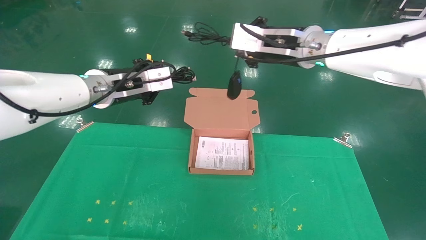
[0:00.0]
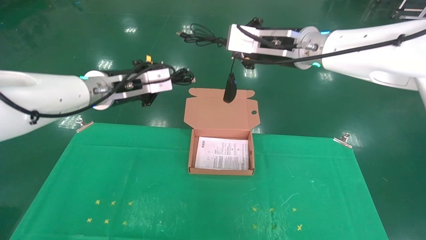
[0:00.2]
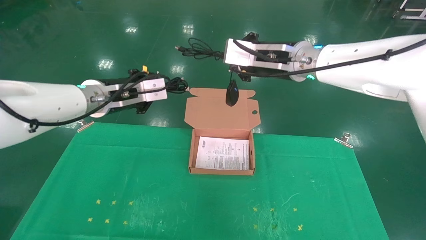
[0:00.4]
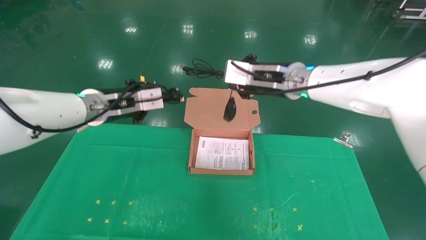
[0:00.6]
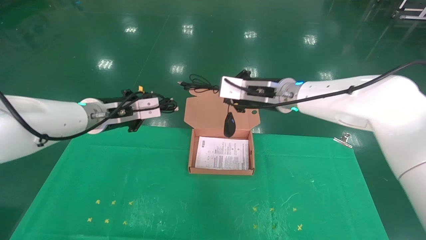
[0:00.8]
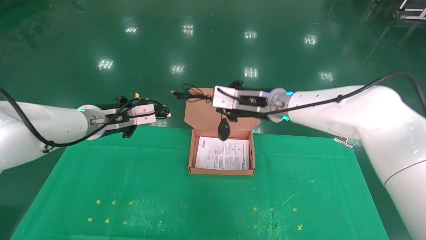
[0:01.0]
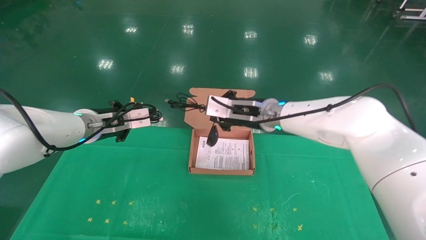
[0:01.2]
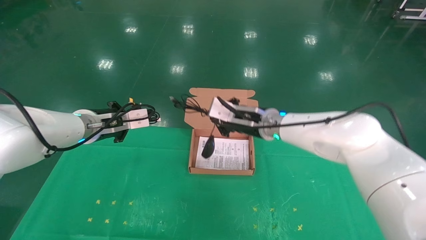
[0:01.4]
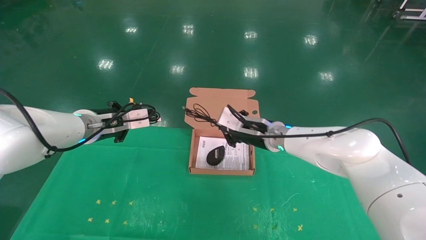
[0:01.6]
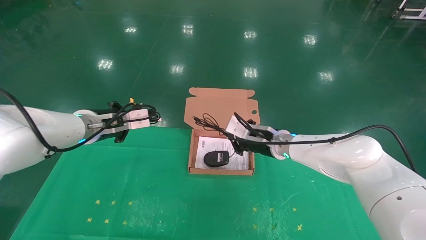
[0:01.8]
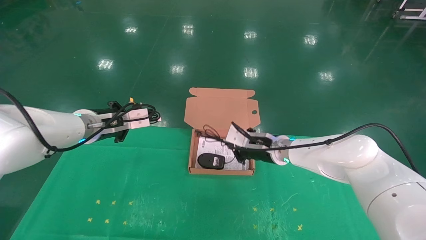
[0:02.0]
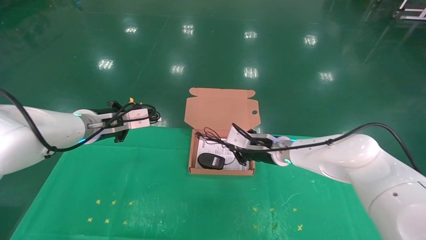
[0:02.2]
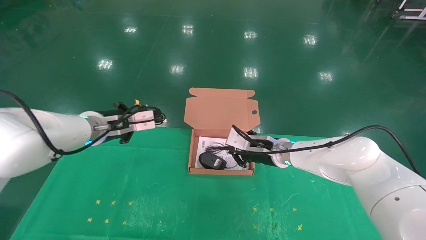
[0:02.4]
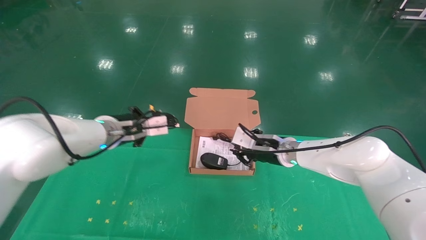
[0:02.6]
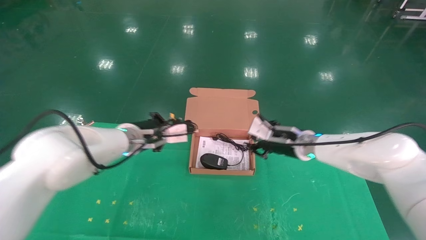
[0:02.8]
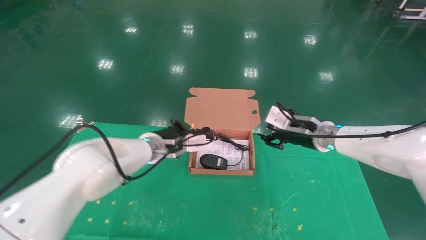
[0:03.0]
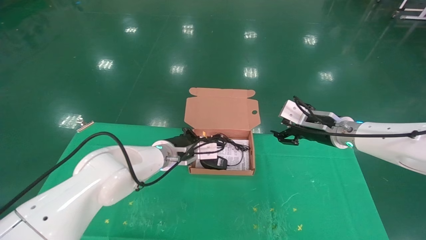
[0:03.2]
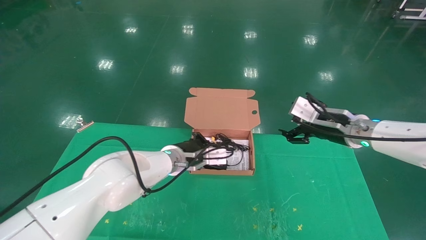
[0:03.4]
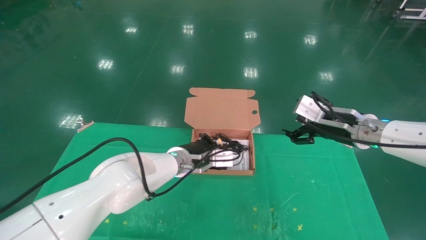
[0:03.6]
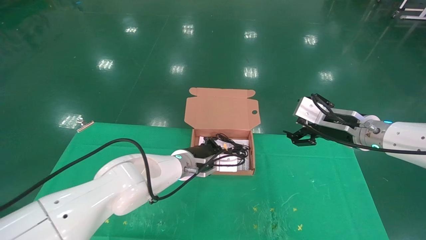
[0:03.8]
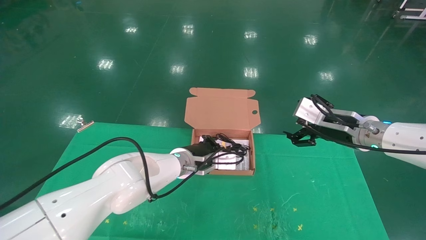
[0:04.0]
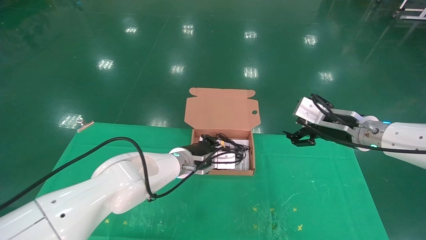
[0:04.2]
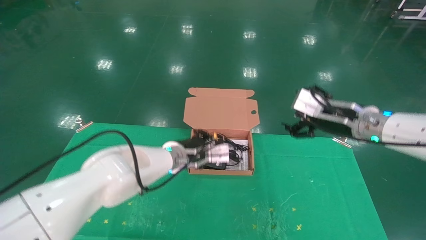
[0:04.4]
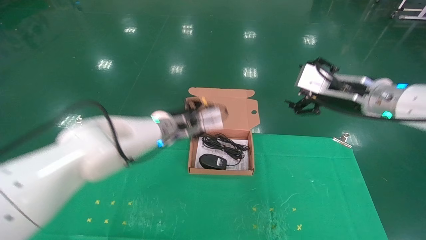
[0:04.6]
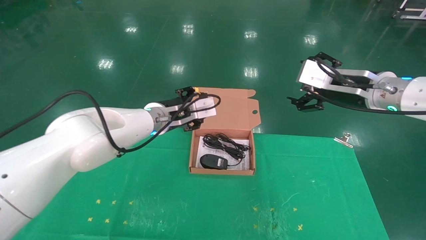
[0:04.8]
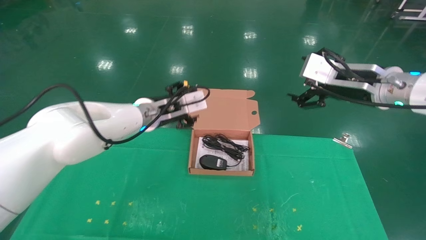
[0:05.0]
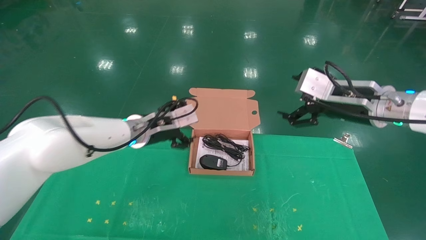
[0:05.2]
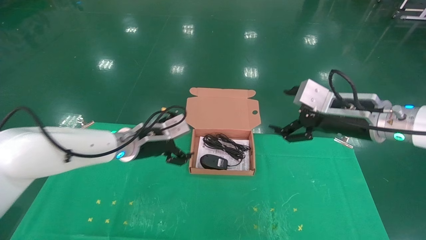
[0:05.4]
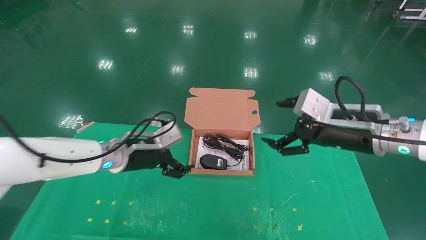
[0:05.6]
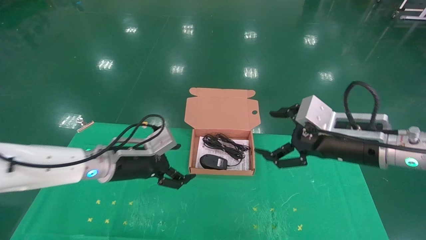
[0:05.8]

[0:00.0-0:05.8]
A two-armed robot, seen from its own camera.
Task of the whole recording: grasp data cable left put into box grasp mouse right put into box.
Step, 0:00.0 to 0:04.4: Place the mouse and power cord into the box.
0:00.0 to 0:01.4: The left gripper travels downward by approximately 5 cm. The right gripper goes approximately 15 cm downward.
0:01.4 to 0:02.8: The two grippers go some 10 cm to the right.
0:02.8 to 0:04.4: The right gripper travels upward, backward and to the right by some 15 cm, and opens up; the left gripper heads to the right, covering approximately 10 cm.
0:04.4 to 0:05.8: The left gripper goes some 15 cm to the left and backward, and opens its fingers; the right gripper heads backward, covering approximately 5 cm.
